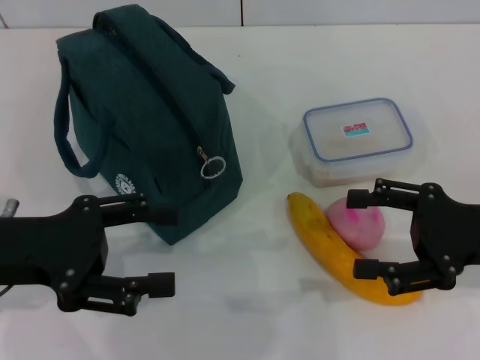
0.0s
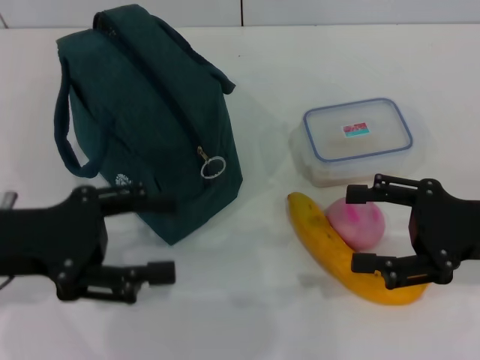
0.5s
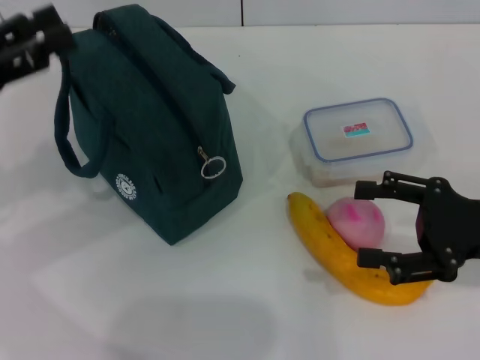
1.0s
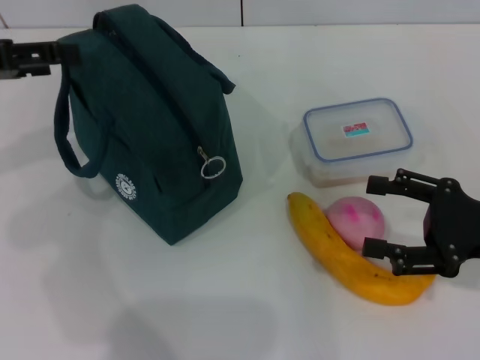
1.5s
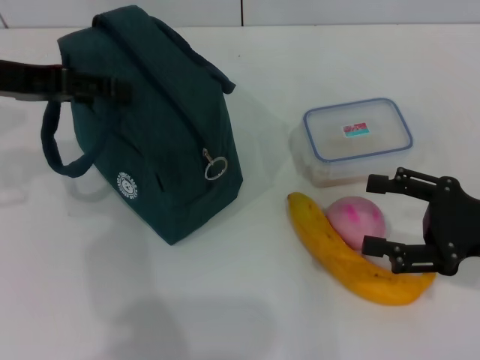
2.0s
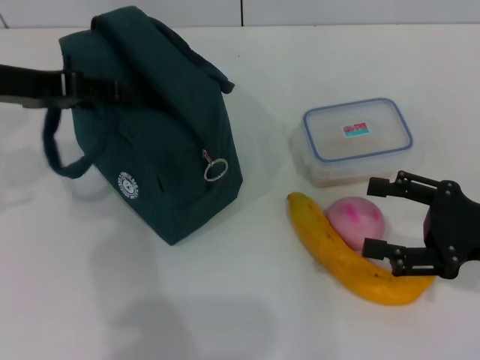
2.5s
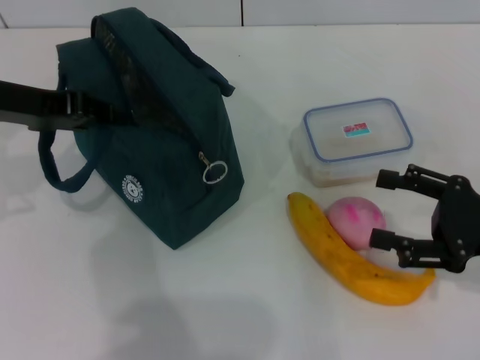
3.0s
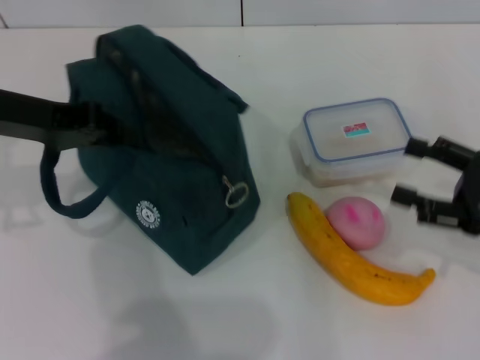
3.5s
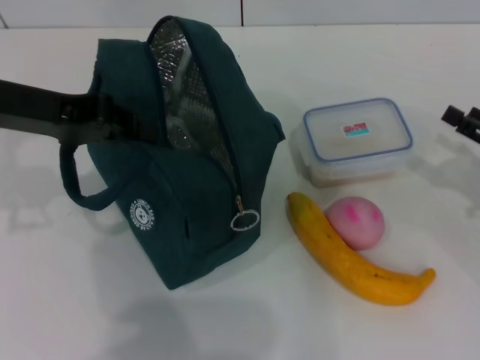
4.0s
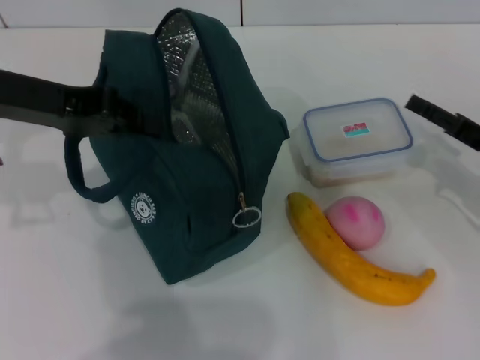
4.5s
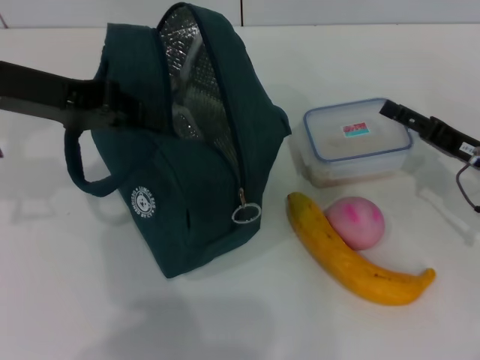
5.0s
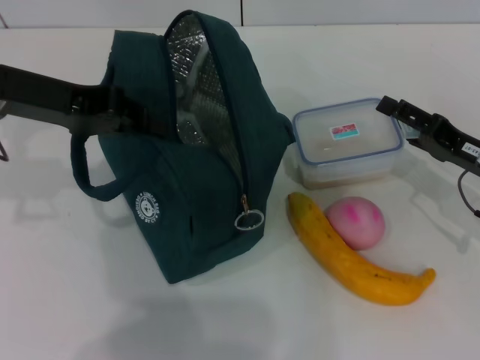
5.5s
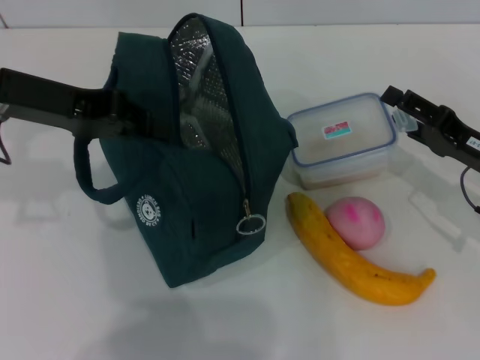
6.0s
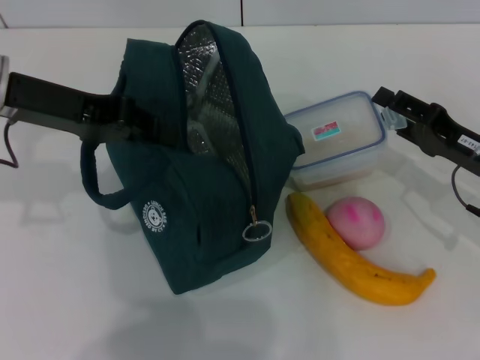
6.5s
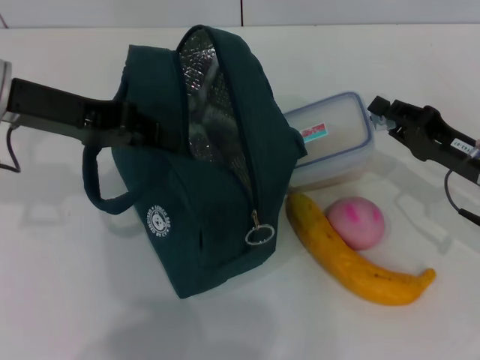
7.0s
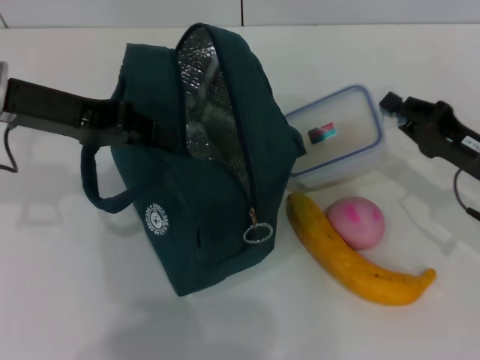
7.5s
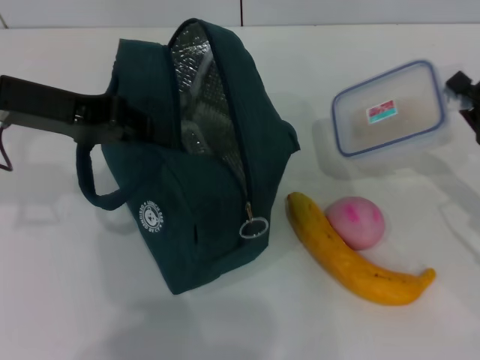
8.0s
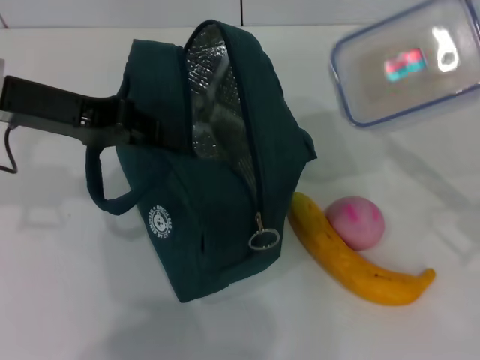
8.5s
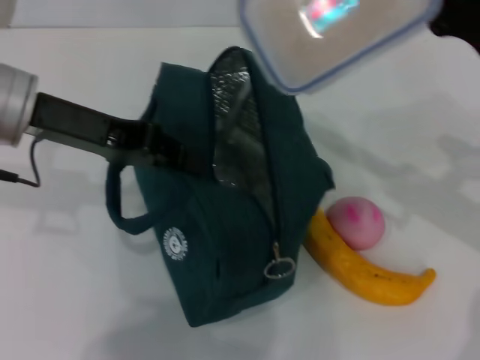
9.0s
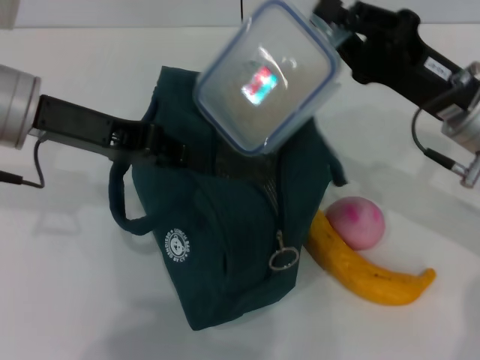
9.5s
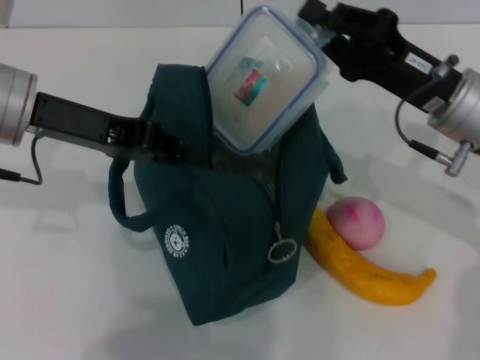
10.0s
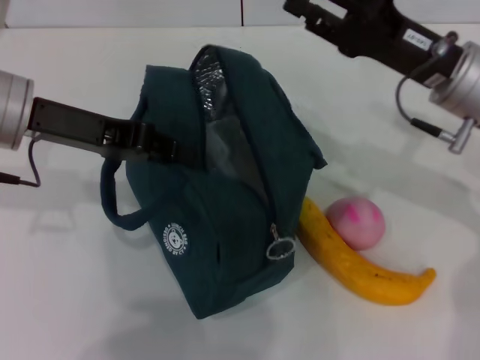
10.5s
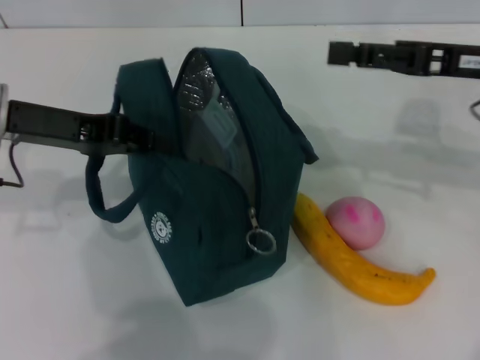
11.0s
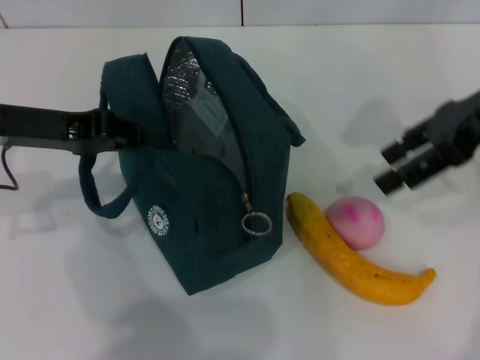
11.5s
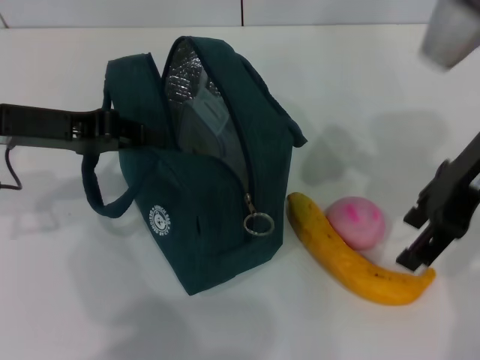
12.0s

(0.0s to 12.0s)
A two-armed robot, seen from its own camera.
Step, 0.0s - 2.5s: Hold the lunch bag with your left hand.
Step, 3.0s - 7.0s: Pick up the lunch box with your right hand.
Step, 7.5s - 10.5s: Place the lunch box into the lunch bag with your right hand.
0.0s - 2.0s: The left gripper shifts about 15 cm forward and upward.
2.0s - 4.0s: The right gripper is displaced to the right by roughly 5 cm. The left gripper closes.
4.0s - 6.0s: The right gripper heads to the left, covering roughly 5 cm.
6.0s - 8.0s: The right gripper closes up.
8.0s - 10.0s: The right gripper heads to the left, upward and forward, covering approximately 15 cm.
10.0s - 12.0s: The left gripper moves roughly 5 cm, while the right gripper is displaced upward by roughly 10 cm, and opens.

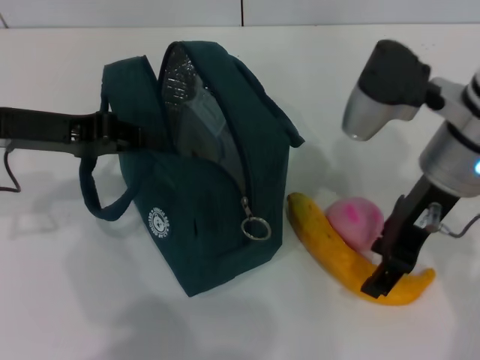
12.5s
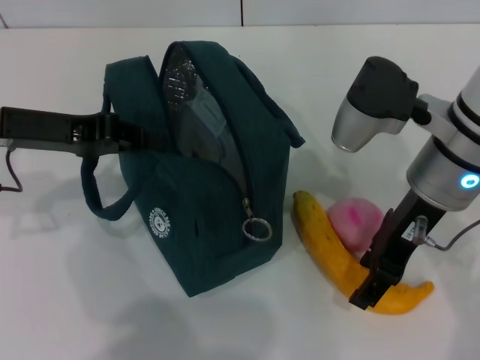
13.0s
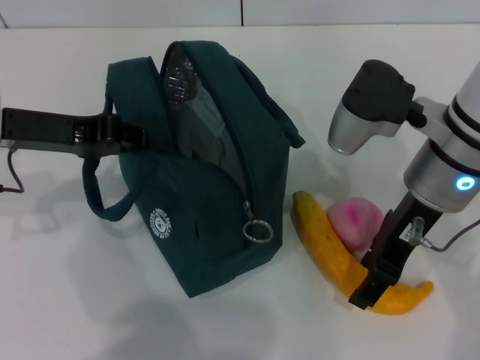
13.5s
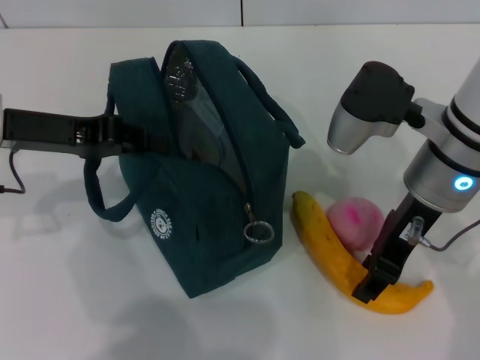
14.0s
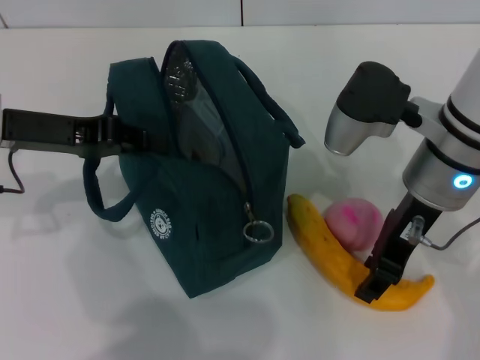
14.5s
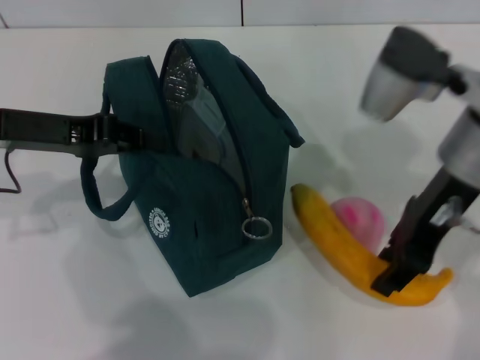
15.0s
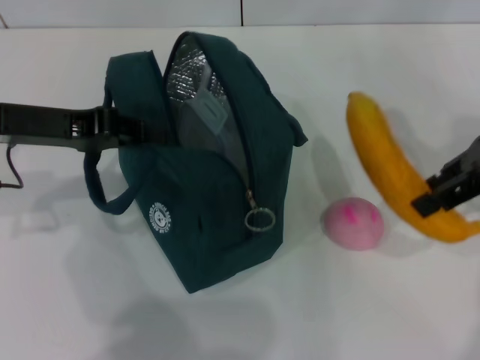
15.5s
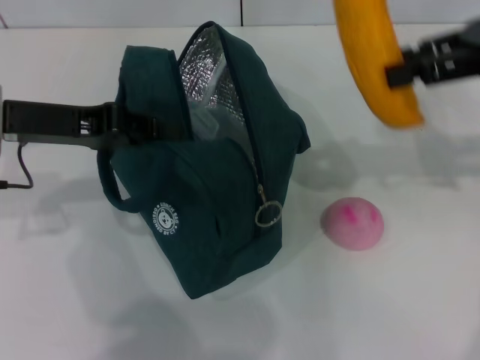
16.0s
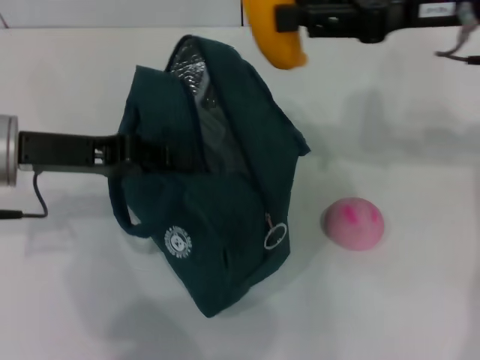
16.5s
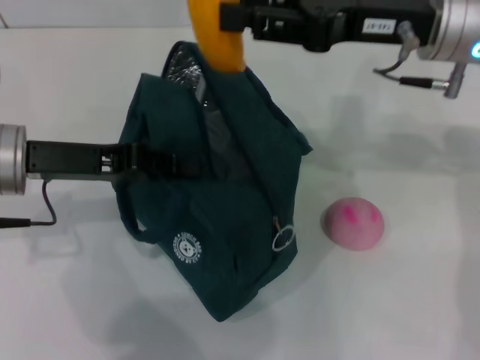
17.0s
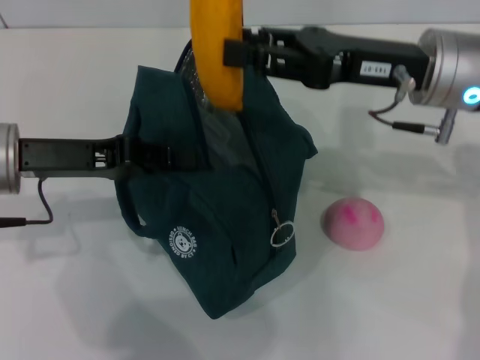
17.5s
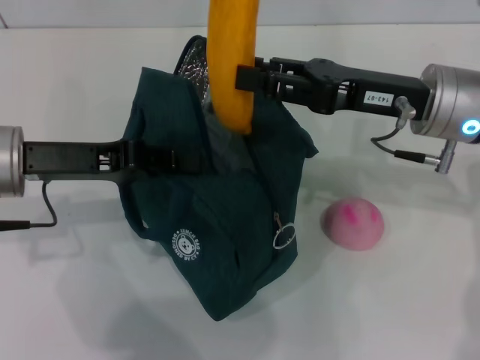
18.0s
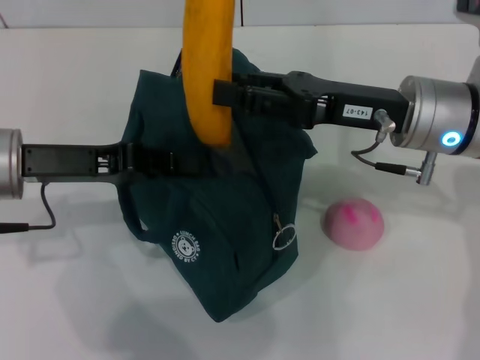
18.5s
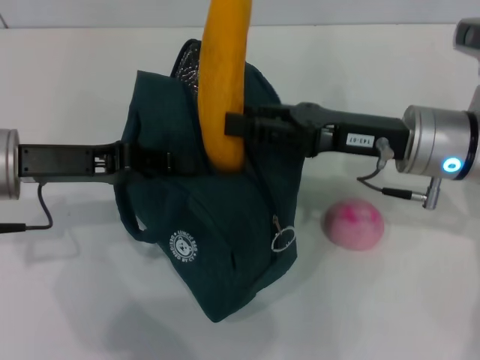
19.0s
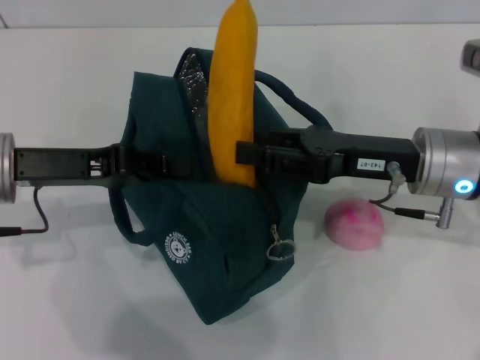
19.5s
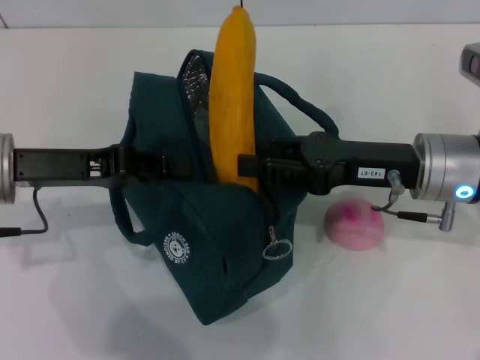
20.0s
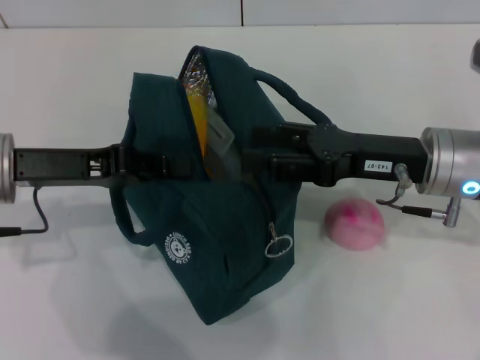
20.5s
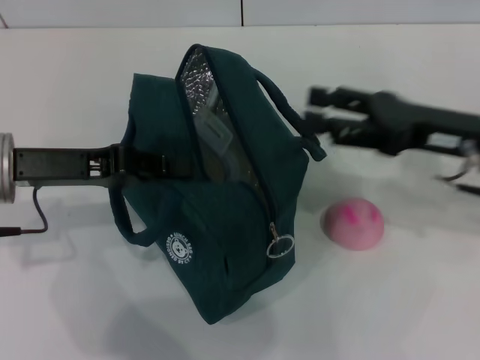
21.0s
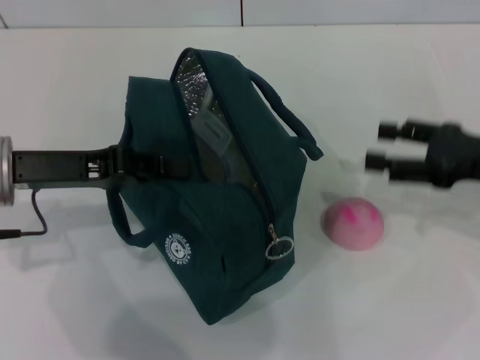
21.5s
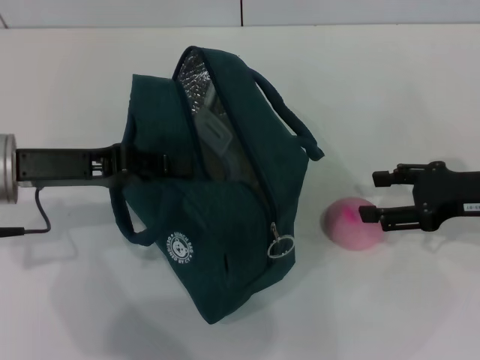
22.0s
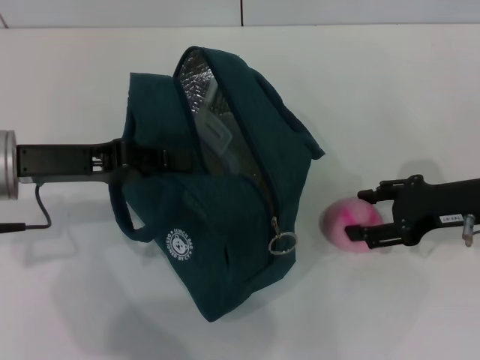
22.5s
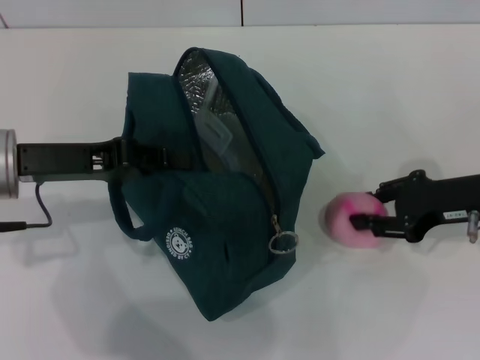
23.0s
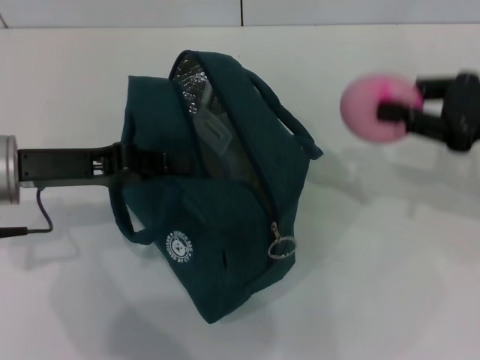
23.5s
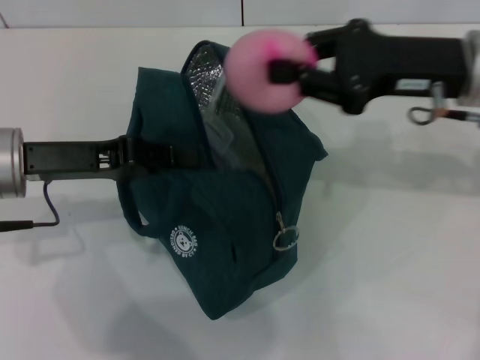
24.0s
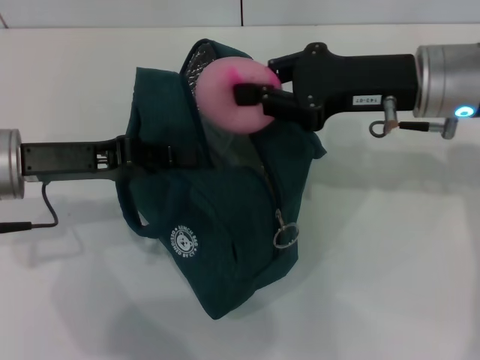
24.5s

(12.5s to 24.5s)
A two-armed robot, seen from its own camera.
Step, 14.5s - 20.5s: Put the banana into the lunch bag with your right hand.
Step, 21.0s - 22.5s: Grab the peach with your right hand.
12.5s - 14.5s: The grippers move only a little.
14.5s - 16.5s: The right gripper travels upward and to the right by roughly 10 cm.
16.5s - 18.5s: The right gripper travels downward by some 10 cm.
20.5s - 22.5s: The right gripper moves to the right, about 10 cm.
22.5s - 24.5s: The right gripper goes roughly 15 cm to the left and upward, and closes up.

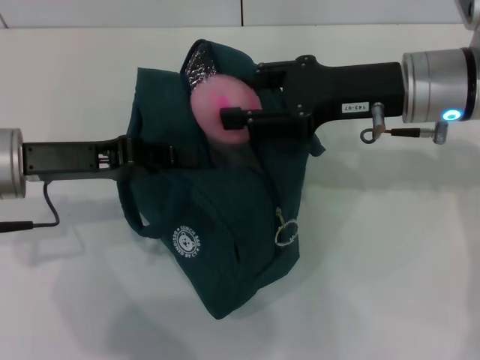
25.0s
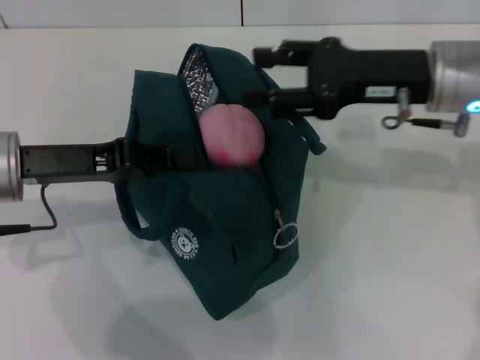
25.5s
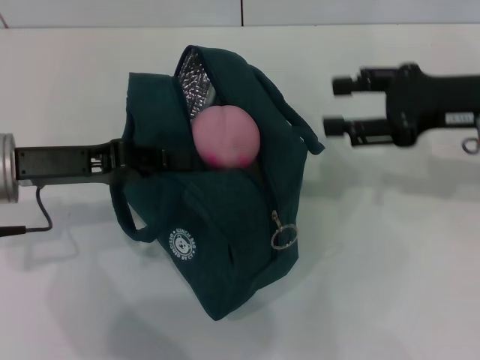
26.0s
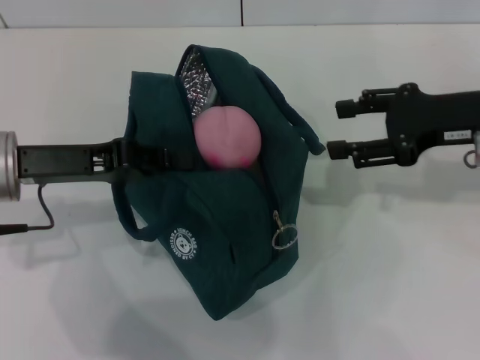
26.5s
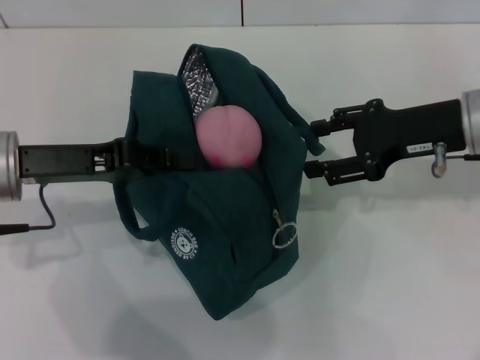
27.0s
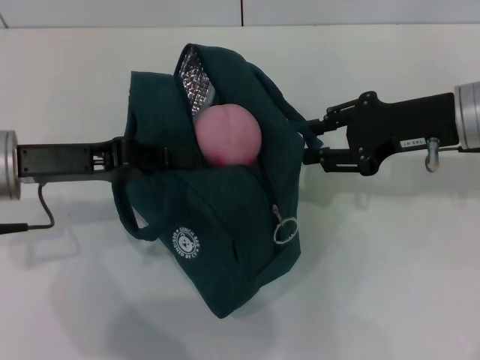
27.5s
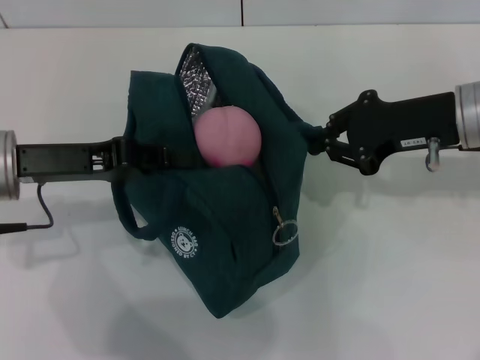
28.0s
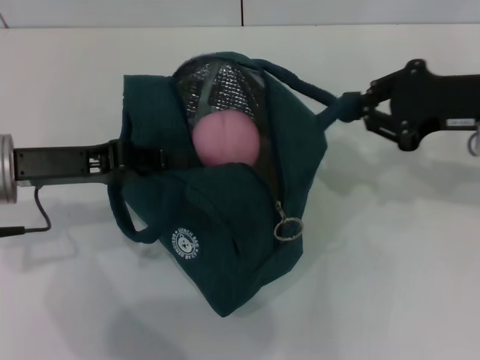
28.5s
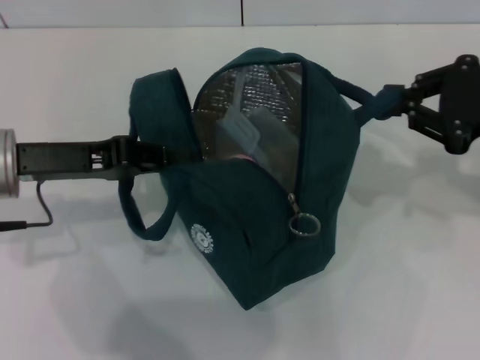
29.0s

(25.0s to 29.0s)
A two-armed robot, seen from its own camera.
25.0s - 27.0s: The right gripper moves to the right, some 5 cm.
27.0s - 29.0s: The right gripper goes about 5 cm to the right, and closes up.
